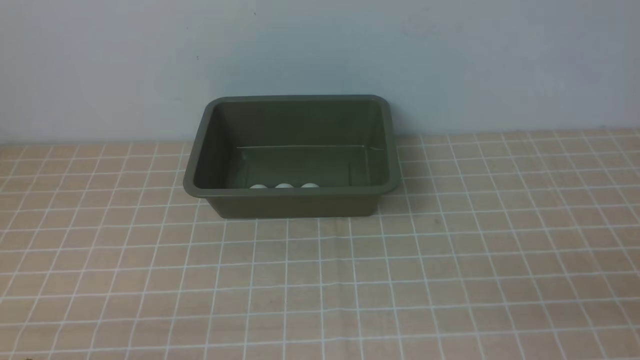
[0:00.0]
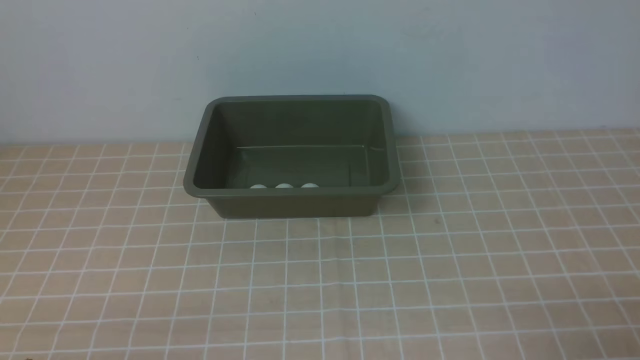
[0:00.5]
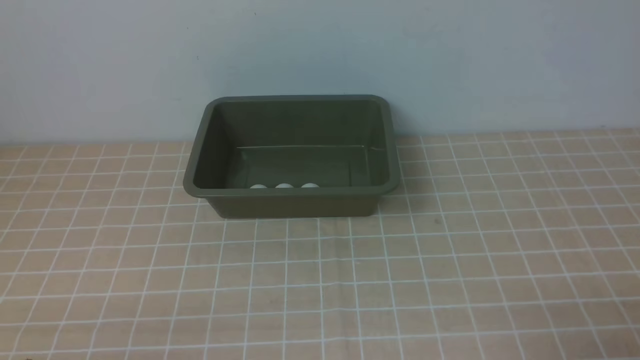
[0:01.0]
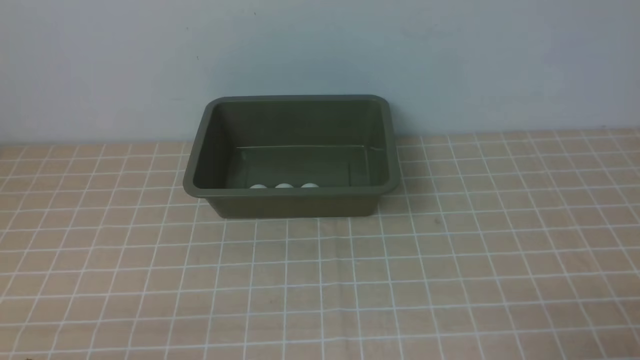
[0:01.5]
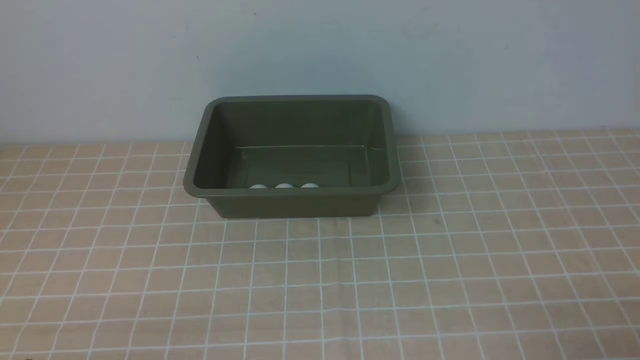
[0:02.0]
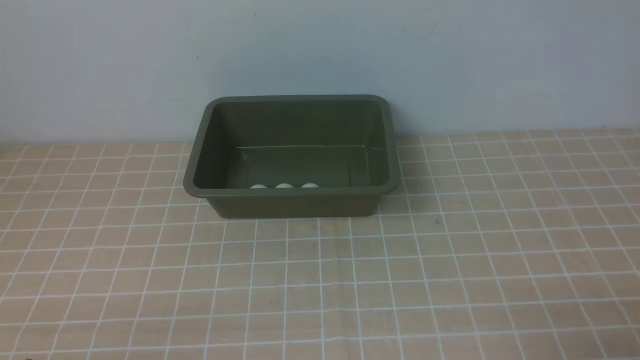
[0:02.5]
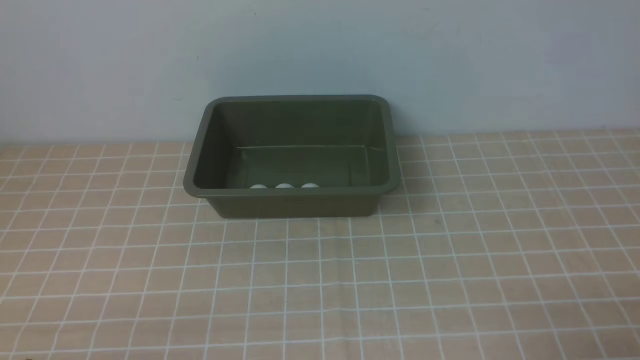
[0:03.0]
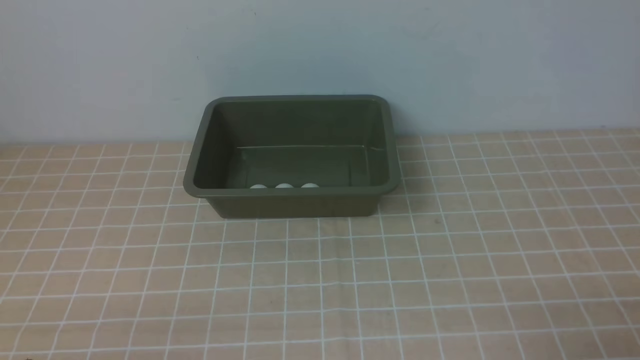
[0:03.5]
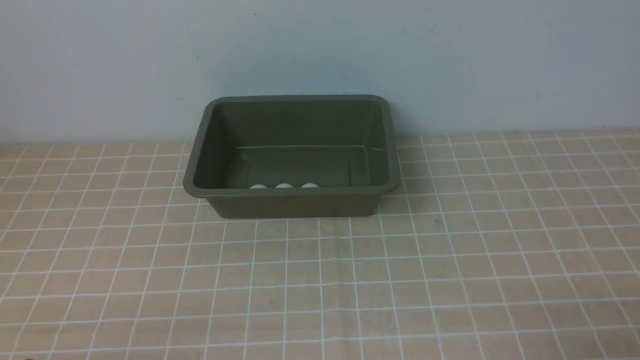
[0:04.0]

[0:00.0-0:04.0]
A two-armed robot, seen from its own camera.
0:02.0 to 0:04.0: Both grippers stay put.
